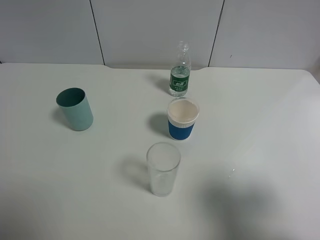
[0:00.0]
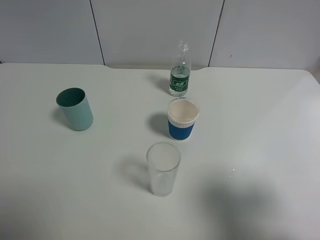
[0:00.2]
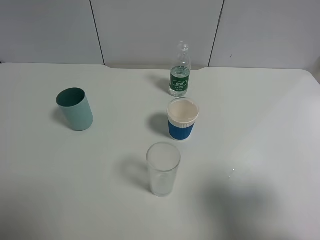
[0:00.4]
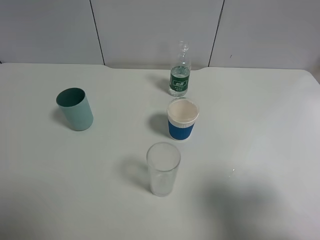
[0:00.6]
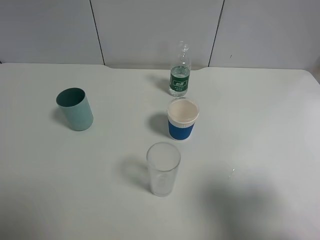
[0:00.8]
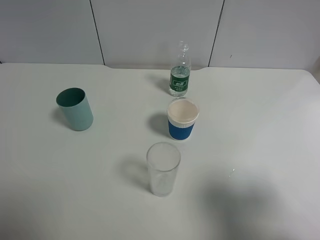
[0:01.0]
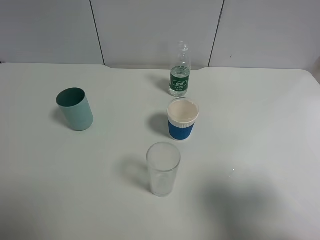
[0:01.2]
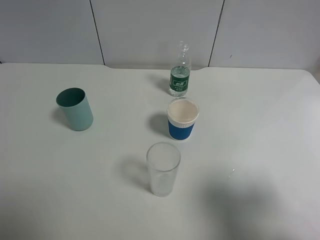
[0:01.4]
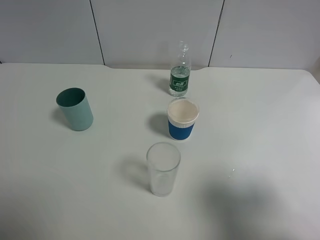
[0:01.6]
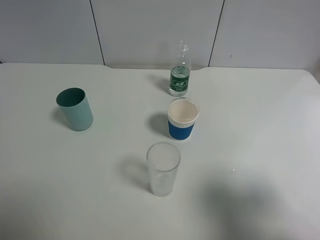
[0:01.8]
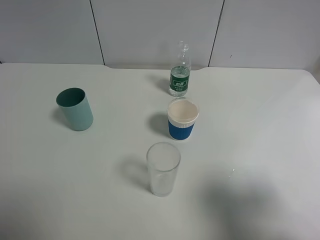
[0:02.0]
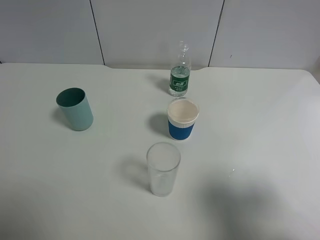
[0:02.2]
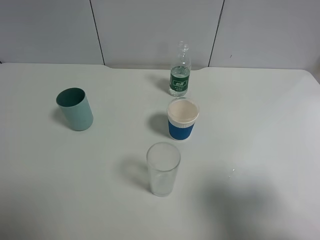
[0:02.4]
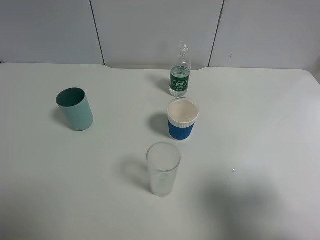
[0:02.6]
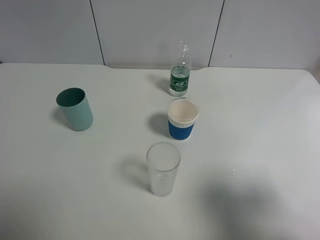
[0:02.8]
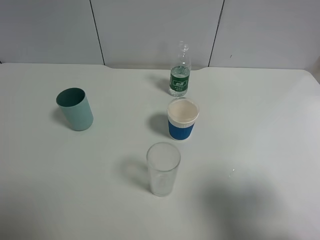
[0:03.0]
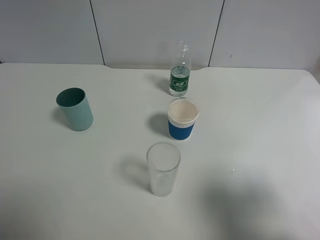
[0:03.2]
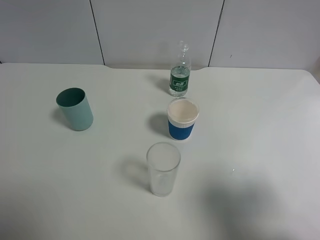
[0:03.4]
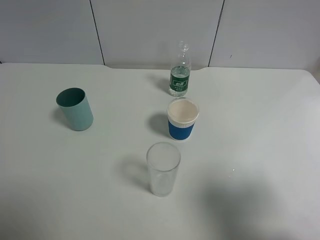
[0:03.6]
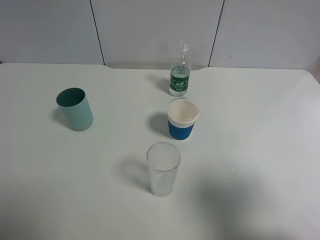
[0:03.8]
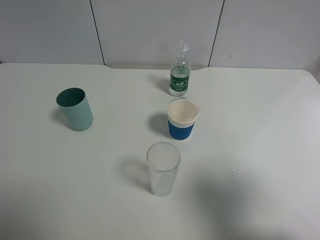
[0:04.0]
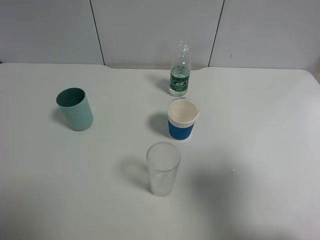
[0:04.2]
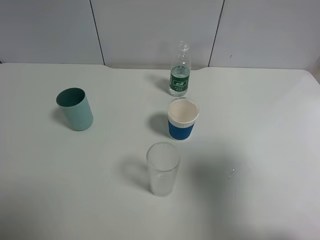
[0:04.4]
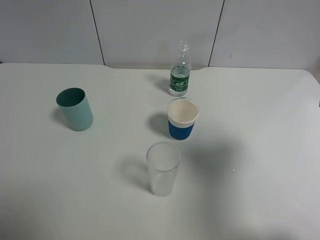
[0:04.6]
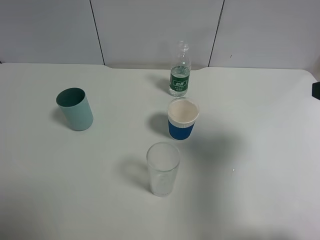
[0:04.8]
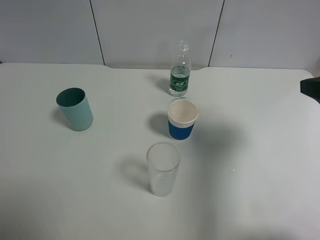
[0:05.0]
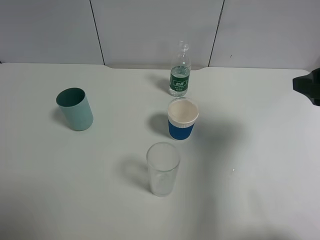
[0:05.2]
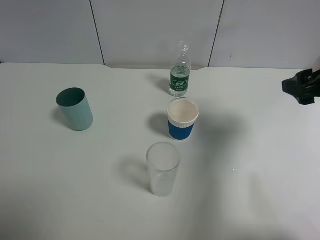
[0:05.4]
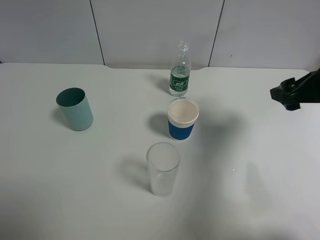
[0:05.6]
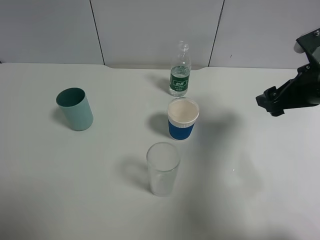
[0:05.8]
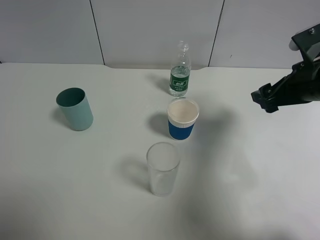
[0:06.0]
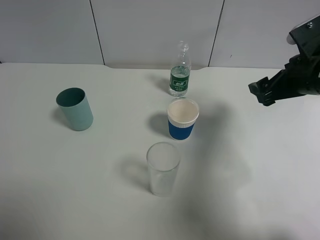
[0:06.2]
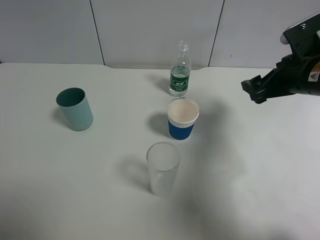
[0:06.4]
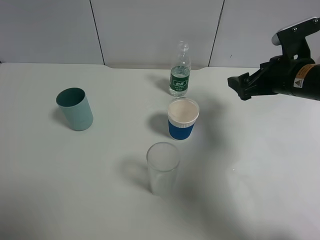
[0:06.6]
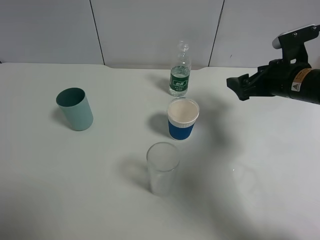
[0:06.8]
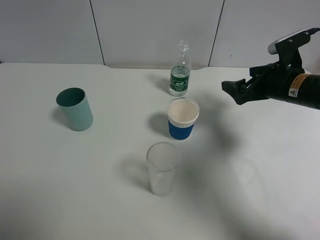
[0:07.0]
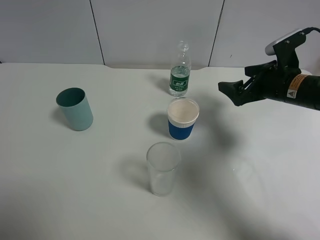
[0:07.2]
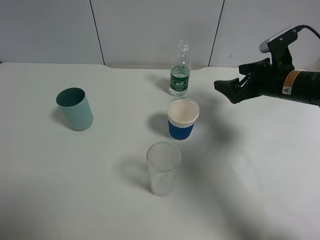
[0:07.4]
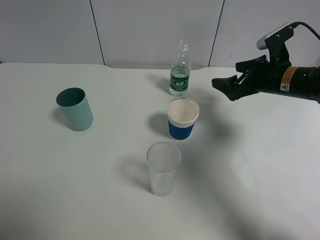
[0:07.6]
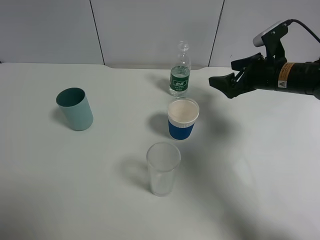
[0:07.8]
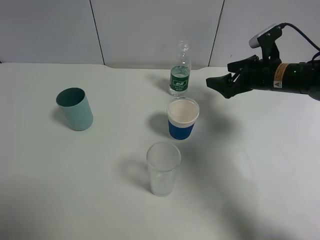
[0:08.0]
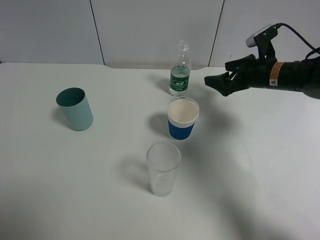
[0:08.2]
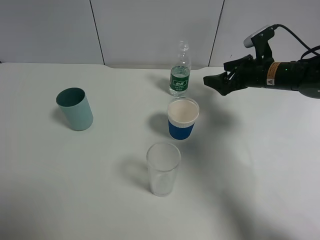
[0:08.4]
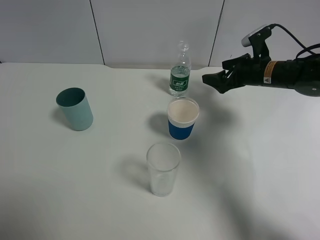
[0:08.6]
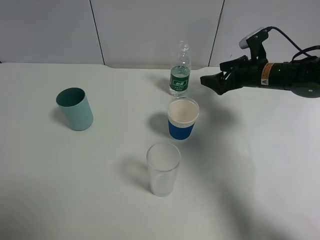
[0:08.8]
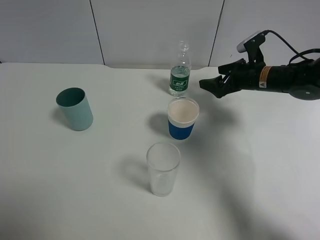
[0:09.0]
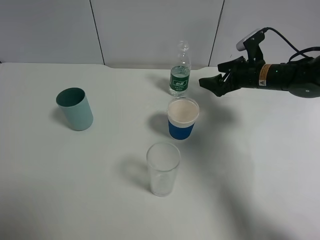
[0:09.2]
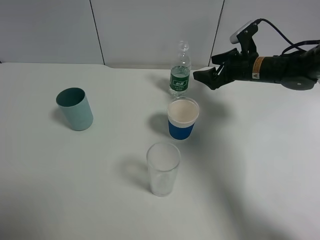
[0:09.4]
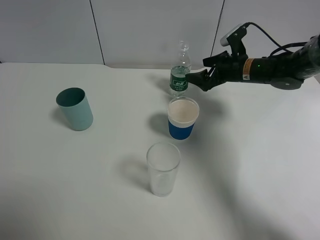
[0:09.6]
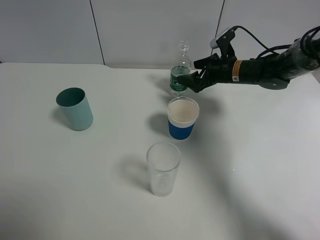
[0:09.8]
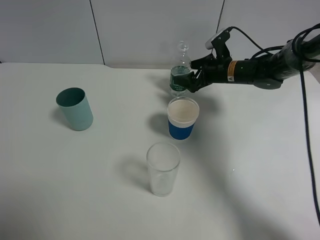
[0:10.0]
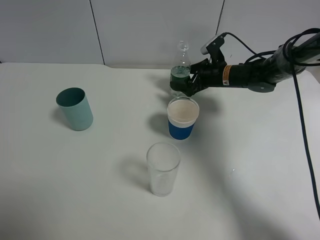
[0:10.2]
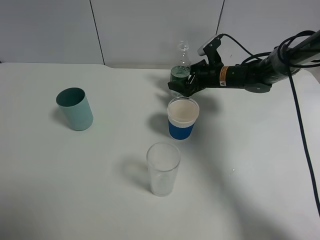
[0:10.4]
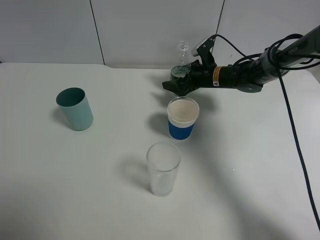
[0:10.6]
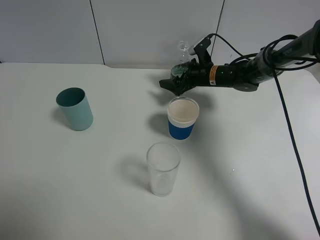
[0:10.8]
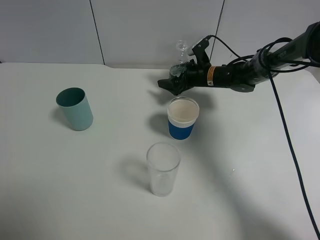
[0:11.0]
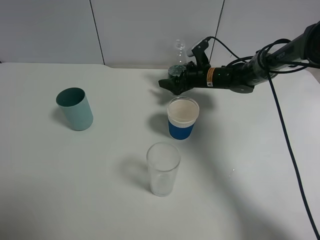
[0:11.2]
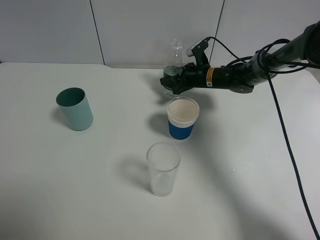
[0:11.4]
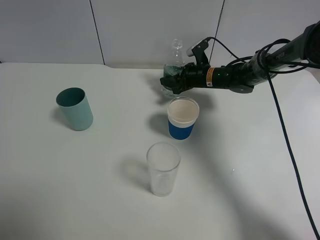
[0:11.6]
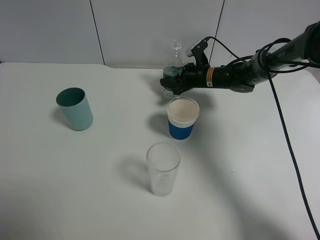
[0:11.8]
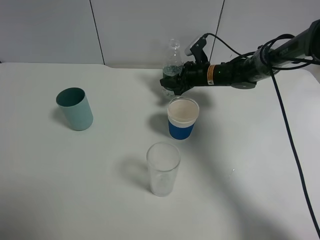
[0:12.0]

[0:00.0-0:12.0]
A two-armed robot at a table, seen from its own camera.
Task of the whole recording: use a gripper to hold the bottle of the drink and pour it into a random cup.
Step, 0:00.0 to 0:11.2: Grasp the mineral water bottle with the right gripper.
0:00.0 to 0:03.0: Both grippers stay about where they are.
0:03.0 to 0:04.4: The right gripper moves forward, roughly 5 cm.
0:04.4 to 0:06.0: The right gripper moves forward, approximately 20 cm.
0:06.0 to 0:07.6: The right gripper goes approximately 10 cm forward and downward.
0:07.6 to 0:09.0: The right gripper travels forward by approximately 5 cm.
0:09.0 to 0:10.4: The right gripper goes about 10 cm to the left and forward.
0:10.4 to 0:12.0: The right gripper closes up.

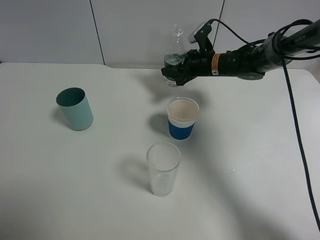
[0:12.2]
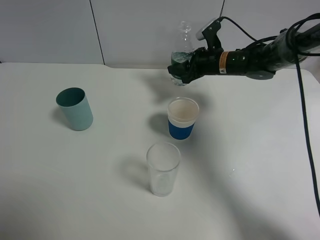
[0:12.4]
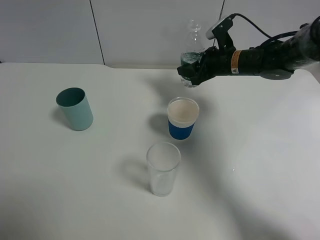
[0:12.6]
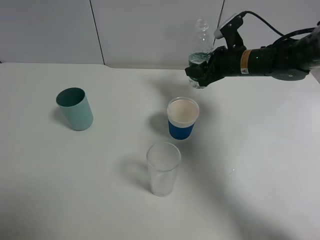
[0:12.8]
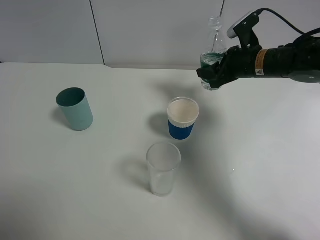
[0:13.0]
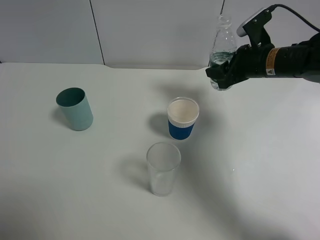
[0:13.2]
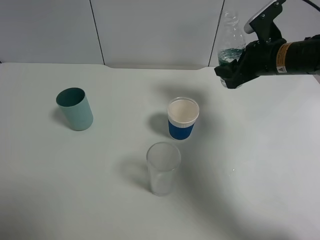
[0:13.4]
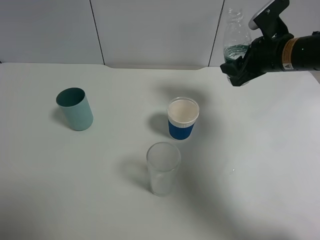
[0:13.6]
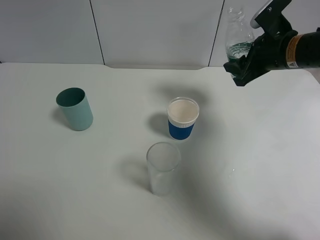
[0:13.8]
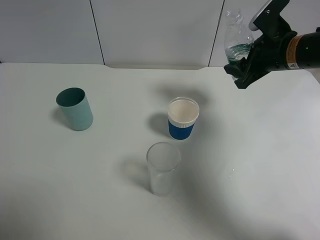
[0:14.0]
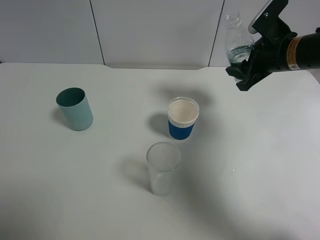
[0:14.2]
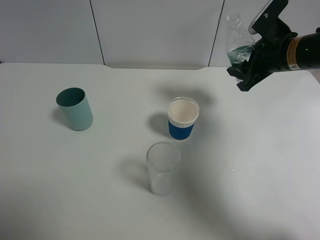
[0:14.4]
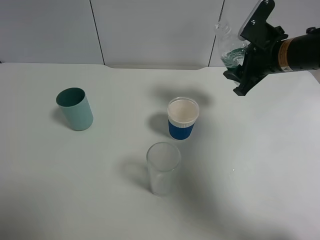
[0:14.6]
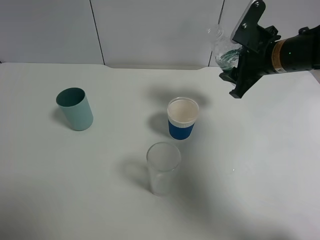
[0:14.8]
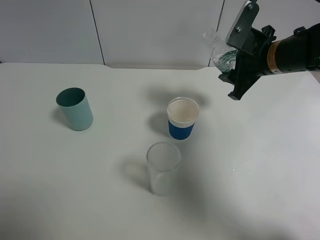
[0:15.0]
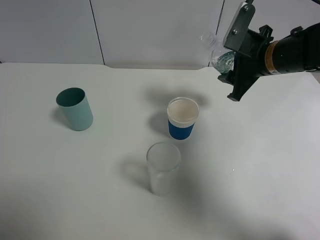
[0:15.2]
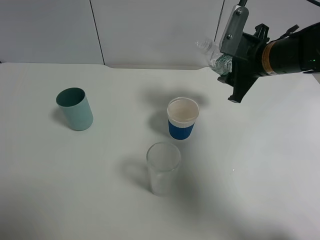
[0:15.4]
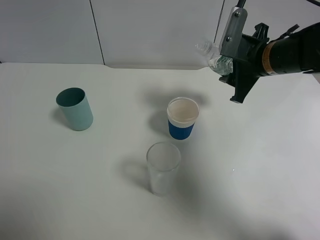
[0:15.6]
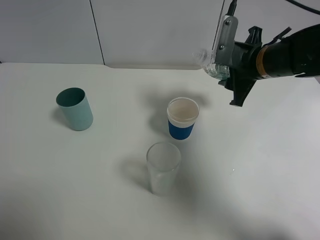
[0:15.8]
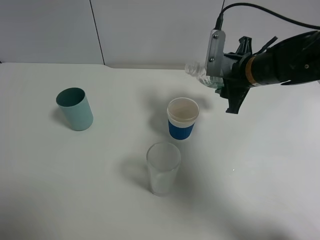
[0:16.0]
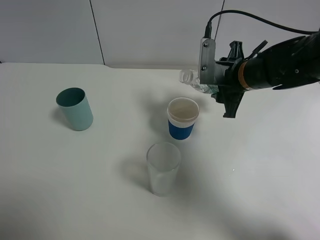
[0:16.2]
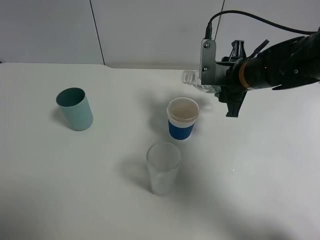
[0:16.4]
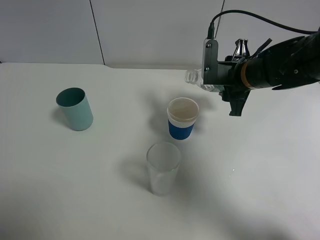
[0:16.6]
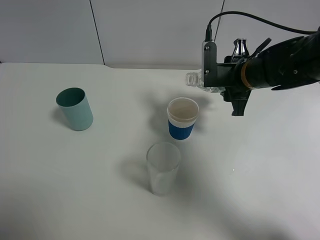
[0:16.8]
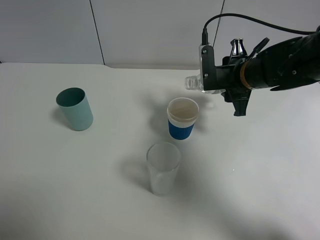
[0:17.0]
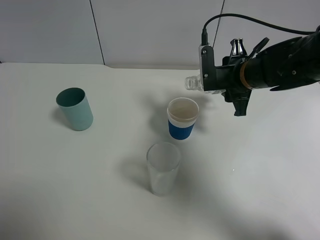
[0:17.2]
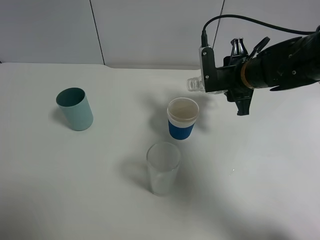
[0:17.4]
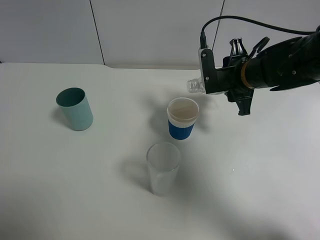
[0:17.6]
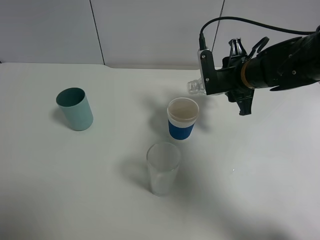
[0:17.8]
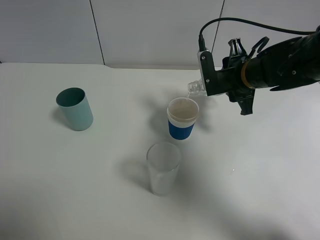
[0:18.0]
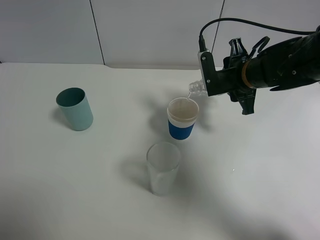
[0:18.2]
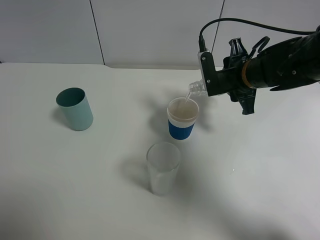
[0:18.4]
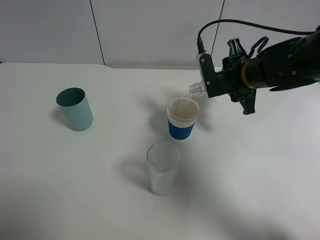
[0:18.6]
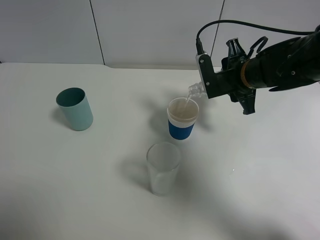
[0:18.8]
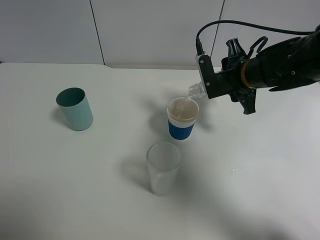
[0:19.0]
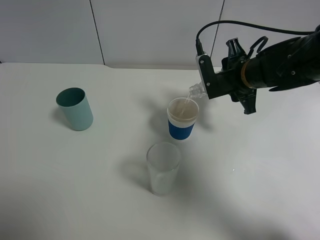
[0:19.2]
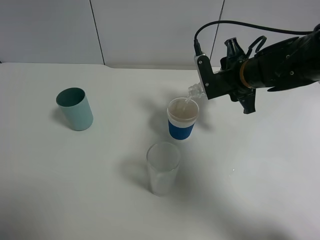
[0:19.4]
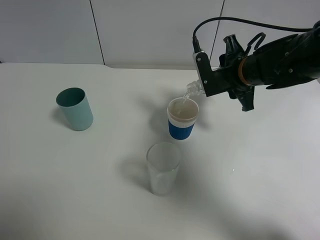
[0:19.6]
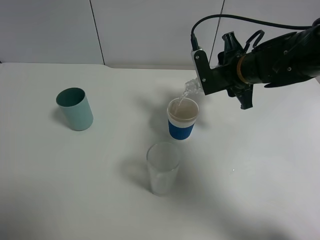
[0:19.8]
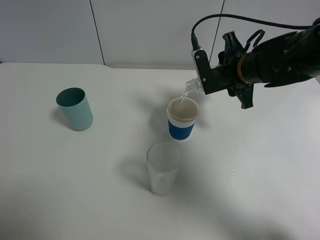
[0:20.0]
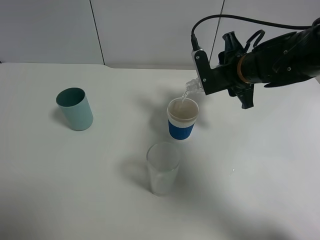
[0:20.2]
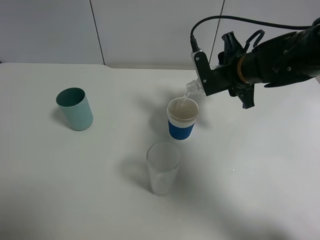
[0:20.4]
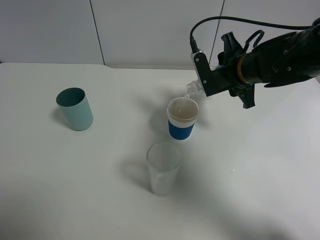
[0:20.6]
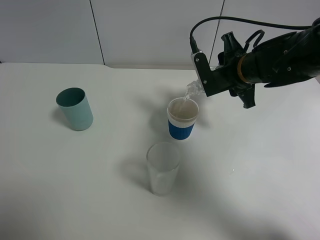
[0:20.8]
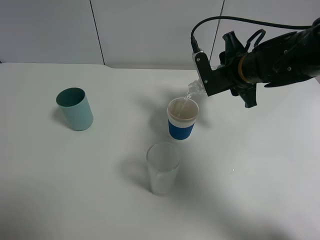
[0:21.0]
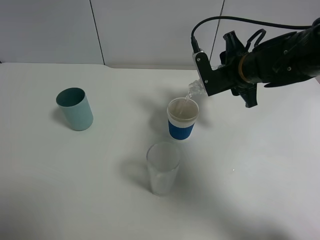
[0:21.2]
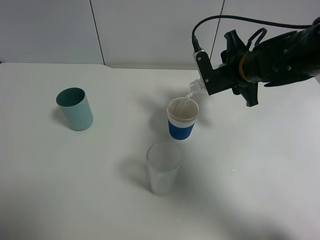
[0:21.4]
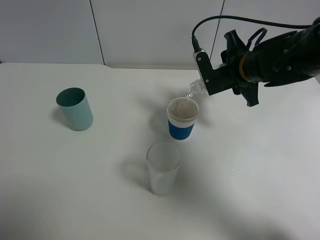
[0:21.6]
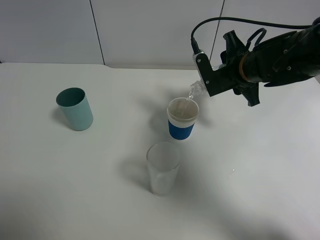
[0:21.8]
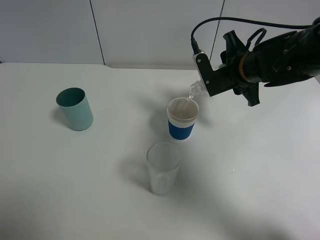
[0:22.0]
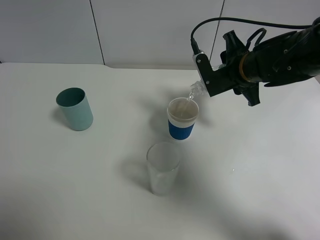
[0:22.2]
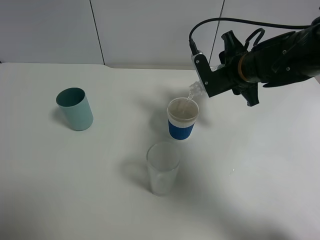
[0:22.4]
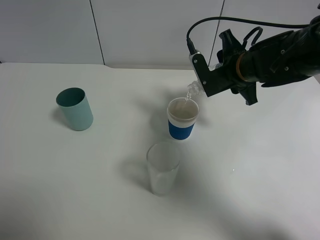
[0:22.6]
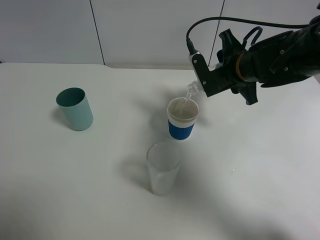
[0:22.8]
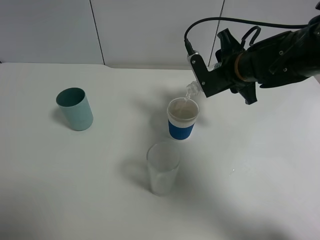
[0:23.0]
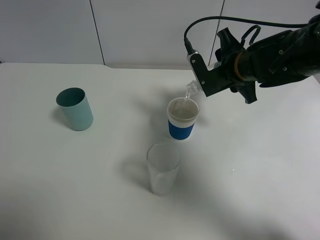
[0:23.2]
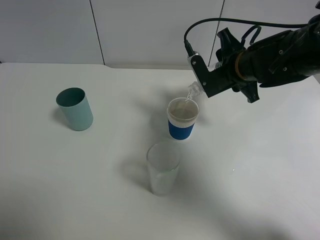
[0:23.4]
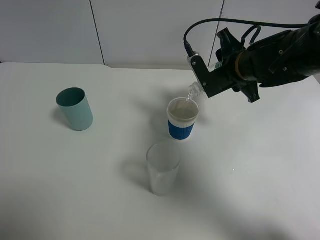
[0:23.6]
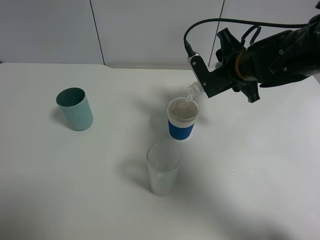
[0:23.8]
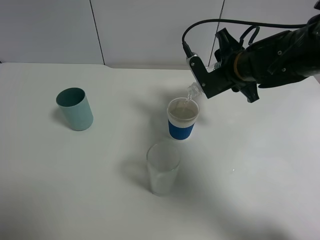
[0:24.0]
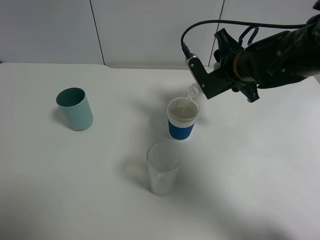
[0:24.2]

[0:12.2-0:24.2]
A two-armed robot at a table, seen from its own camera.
Task of the whole recording: use a gripper to hold the bottle of the drink and pour it into a random cup.
0:12.2 to 0:13.8: The right gripper moves backward, upward and to the right, about 20 cm.
0:16.6 to 0:18.2: There are only small adjustments of the grippers.
0:18.2 to 0:19.8: The grippers stay close to where they were, moving slightly.
0:19.8 to 0:21.2: Both grippers stay put.
0:21.2 to 0:22.6: Neither gripper changes place.
0:22.6 to 0:24.2: The grippers make only small movements.
